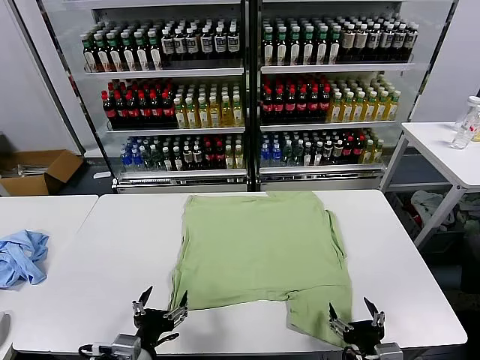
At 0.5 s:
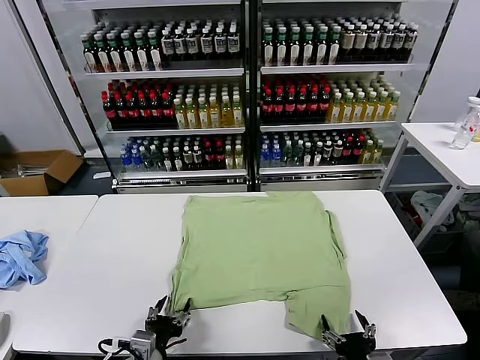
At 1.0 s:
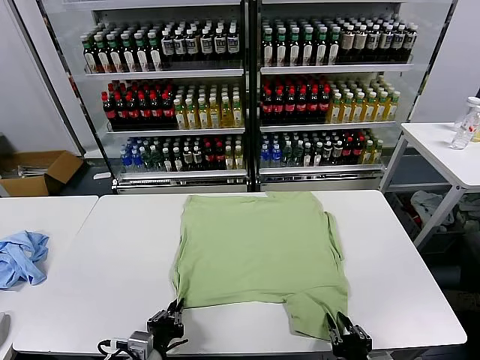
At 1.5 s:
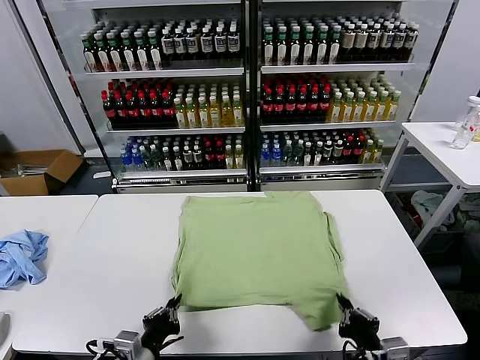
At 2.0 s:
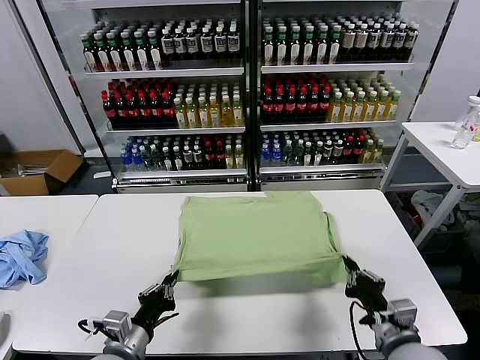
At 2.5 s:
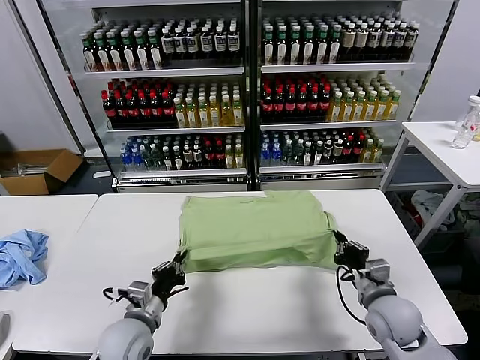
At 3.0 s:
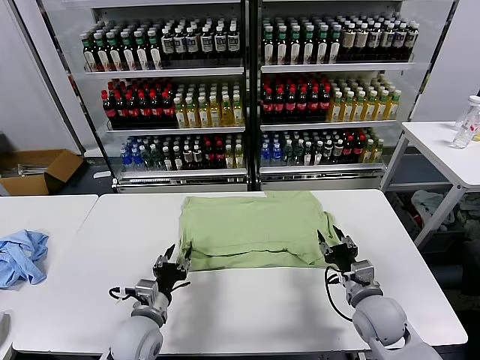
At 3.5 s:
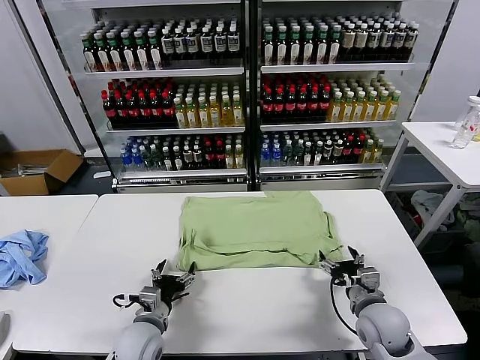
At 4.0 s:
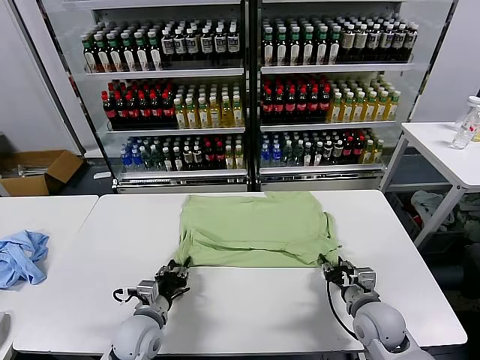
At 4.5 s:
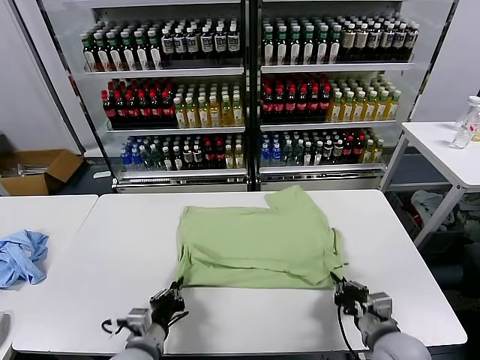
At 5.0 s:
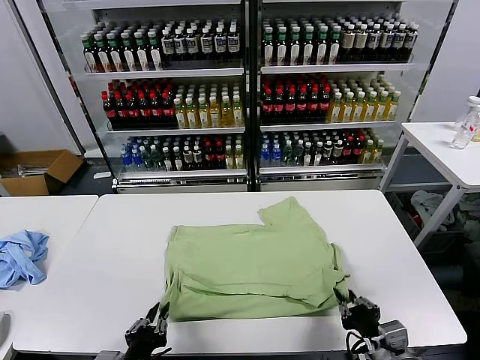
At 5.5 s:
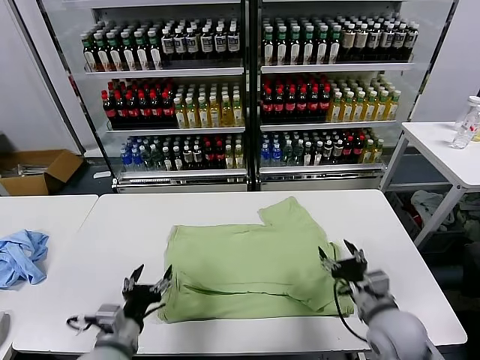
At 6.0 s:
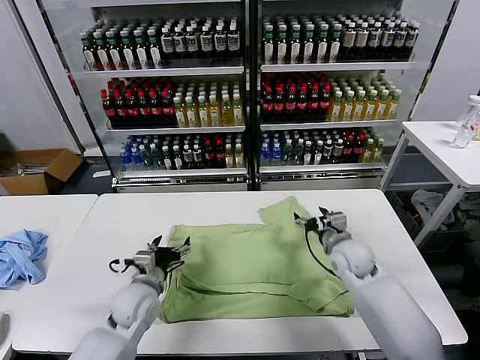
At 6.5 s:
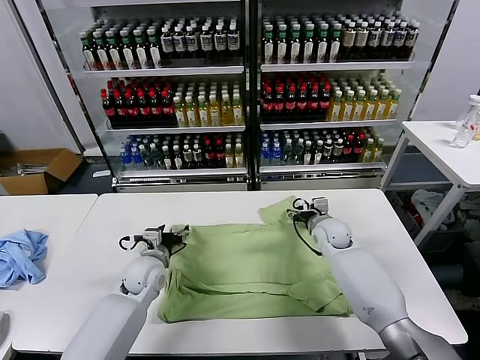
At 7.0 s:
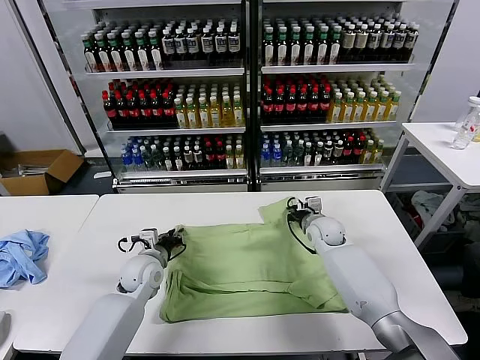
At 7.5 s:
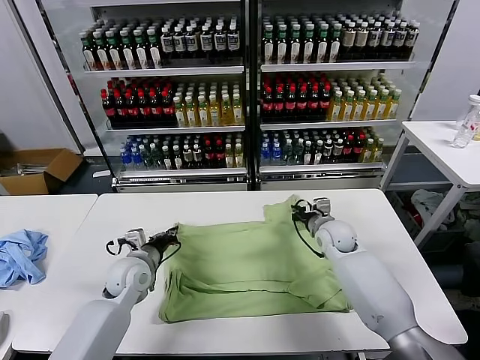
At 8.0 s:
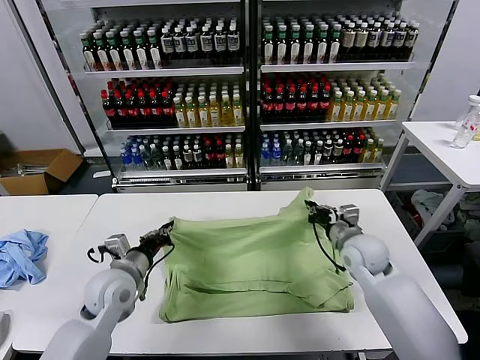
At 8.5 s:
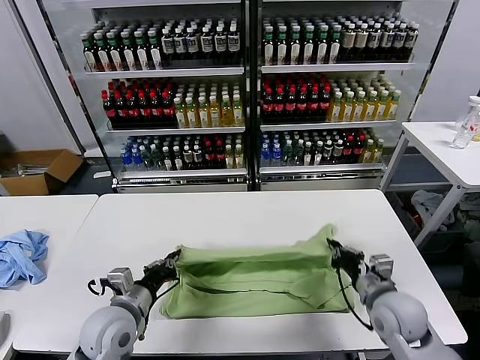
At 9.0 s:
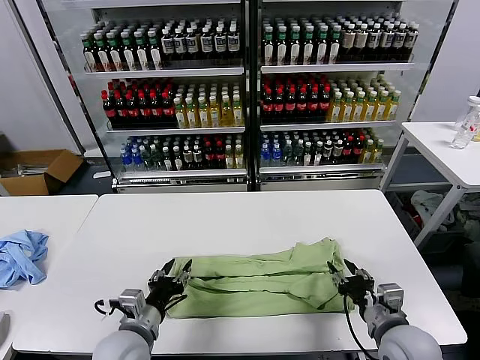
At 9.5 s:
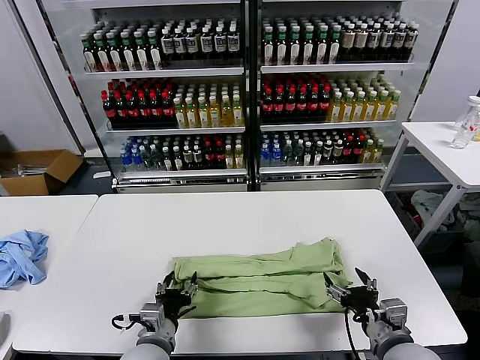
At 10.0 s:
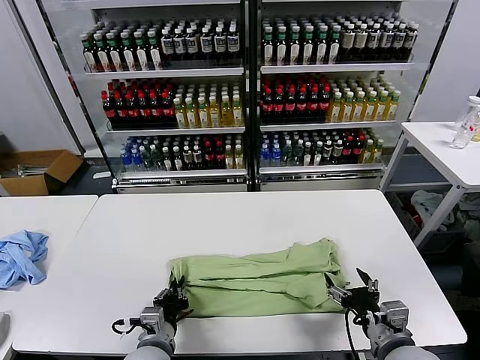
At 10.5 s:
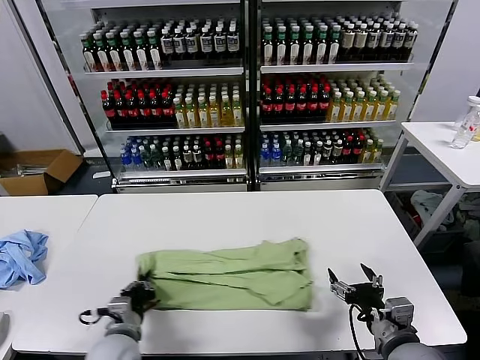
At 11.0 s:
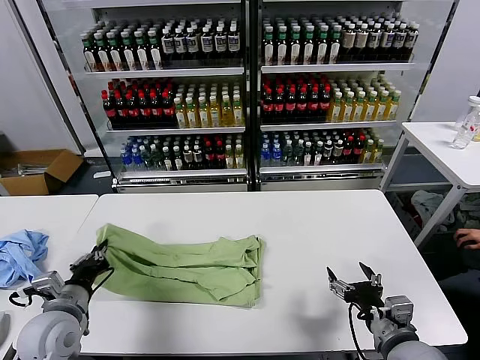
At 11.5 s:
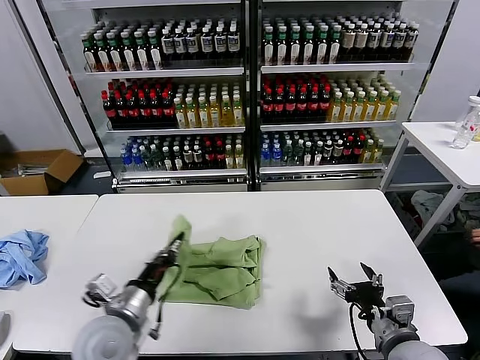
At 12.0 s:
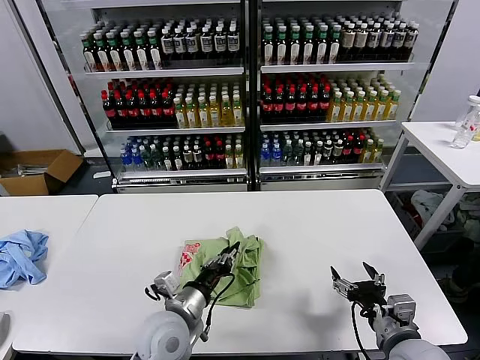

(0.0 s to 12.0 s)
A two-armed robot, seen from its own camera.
Task of the whole recording: fold and organize the clothes.
Step, 0.0 s - 1.0 s: use both grippers simultaneously to clamp the lower edge of the clothing fabric.
Step, 1.5 s - 2.5 s: use both grippers to drag the lower edge of the fabric forward and fold it over the upper edge.
Step, 3.0 s - 5.0 s: Drag the clothes downward with both gripper.
Step, 5.5 s - 7.0 s: use both grippers simultaneously to clamp the upper edge of the clothing fabric.
Step, 7.5 s - 8.5 s: use both grippers to drag the upper edge of the fabric backward and fold it over the lower edge.
Step, 9.0 s - 10.0 s: use the left gripper to clamp the left edge of the fabric.
2.0 s - 4.0 s: Both grippers move forward and downward, about 10 cm. The left gripper opens up. Meanwhile the right gripper opens, then closes once more.
4.0 s - 6.0 s: The right gripper goes approximately 20 cm forward, and opens up, while the left gripper reaches approximately 15 cm backward, then returns, and opens up.
6.0 s - 8.0 s: The right gripper heads backward, covering roughly 5 cm, and closes. The left gripper moves upward, roughly 5 cm, travels forward and back again, about 5 cm each way, and closes up.
8.0 s - 10.0 s: The left gripper heads backward, downward and to the right, covering roughly 15 cm, and opens, then closes again. The right gripper is displaced backward by about 20 cm, and opens up.
10.0 s - 12.0 s: The left gripper shifts about 5 cm upward, and goes to the left and returns, about 15 cm each way.

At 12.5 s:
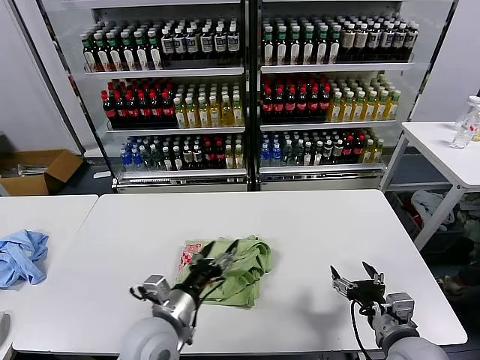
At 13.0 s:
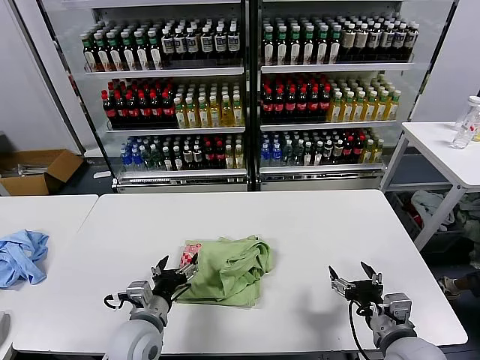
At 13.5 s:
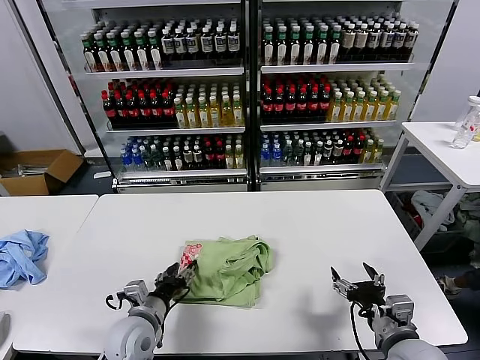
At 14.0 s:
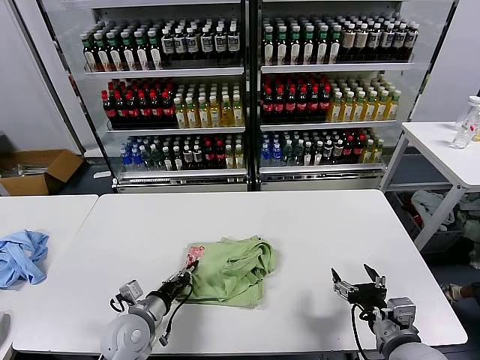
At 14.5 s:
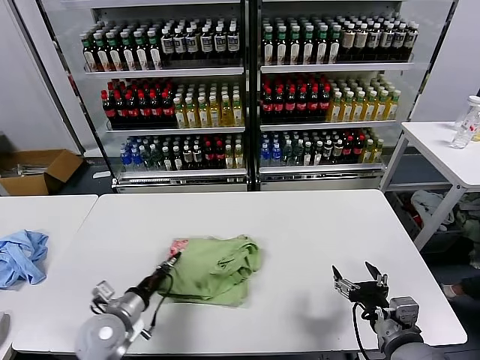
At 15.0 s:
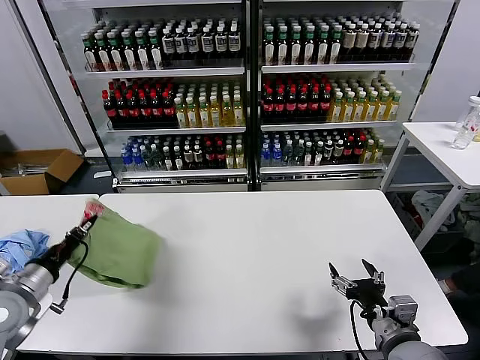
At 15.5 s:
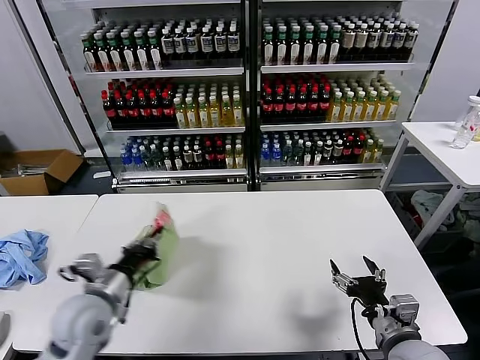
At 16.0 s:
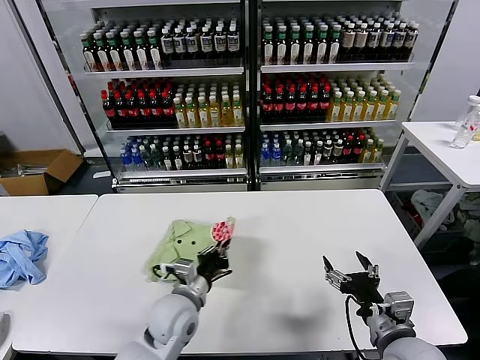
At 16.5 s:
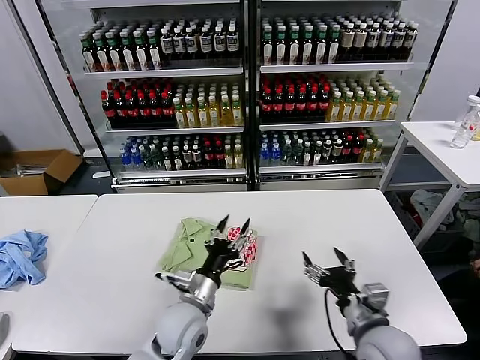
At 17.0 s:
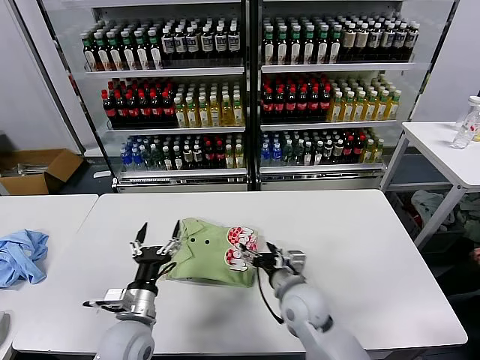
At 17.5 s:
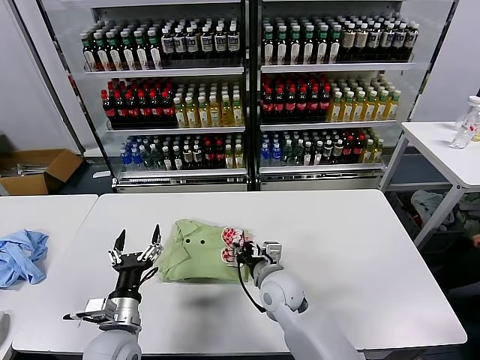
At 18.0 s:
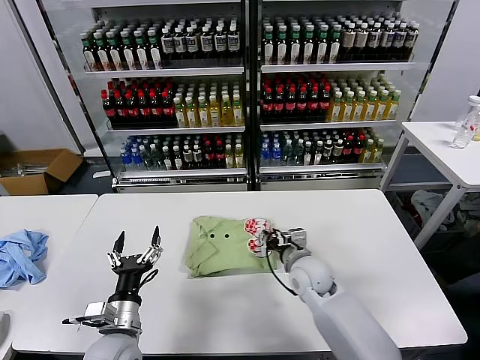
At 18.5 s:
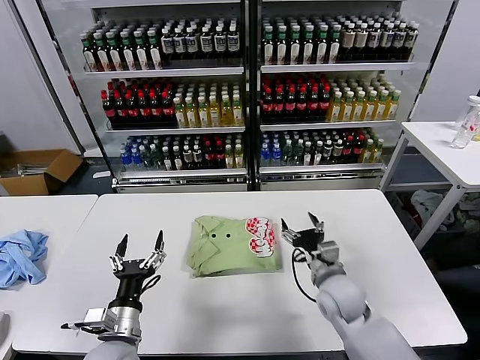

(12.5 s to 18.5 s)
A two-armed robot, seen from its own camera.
Task of the whole recording: fold and organize the clothes.
Step, 12.5 s - 16.0 s: Flip the folded clothes over with left gripper.
Step, 16.5 s - 18.0 s: Drag the clothes to the center of the table.
12.5 s - 14.5 s: The left gripper is displaced to the left and downward by about 15 cm, and closes.
14.5 s - 16.5 s: The left gripper travels to the right by about 15 cm, and opens.
16.5 s - 18.5 s: The right gripper heads forward, covering roughly 15 cm, and closes and opens again; the left gripper goes some 15 cm to the left and backward, and opens up.

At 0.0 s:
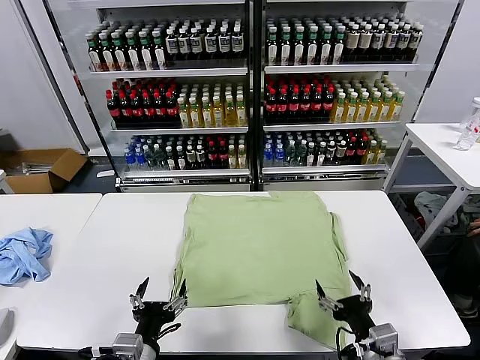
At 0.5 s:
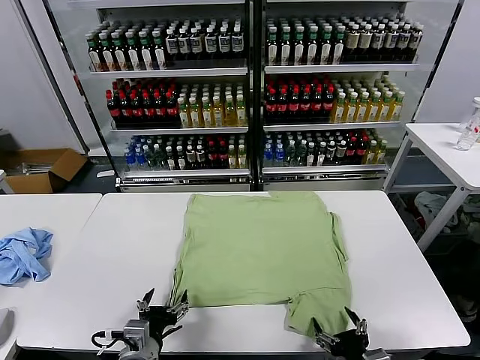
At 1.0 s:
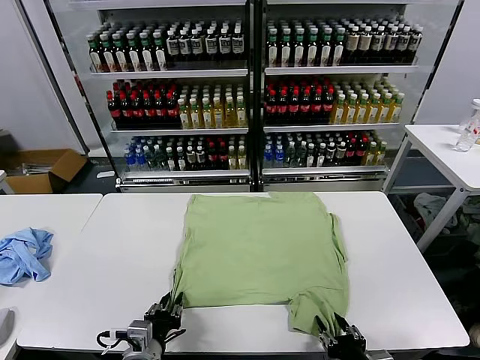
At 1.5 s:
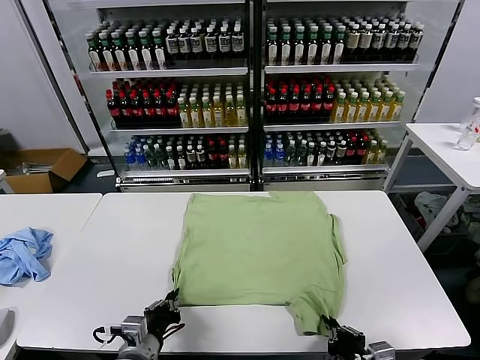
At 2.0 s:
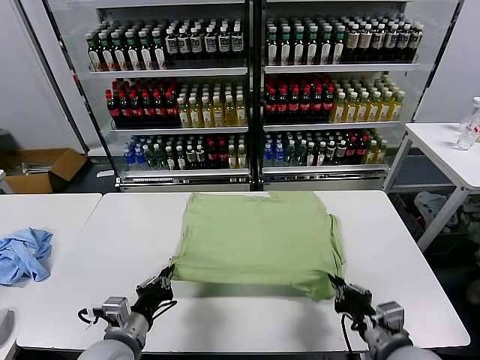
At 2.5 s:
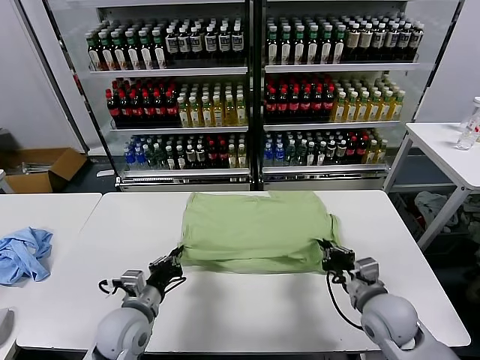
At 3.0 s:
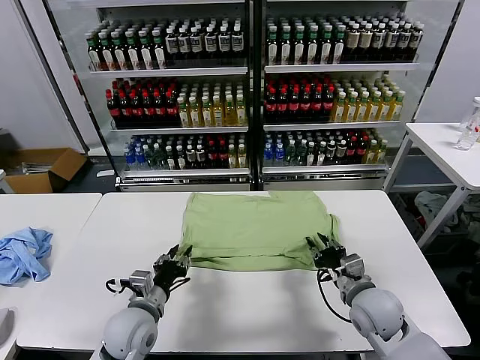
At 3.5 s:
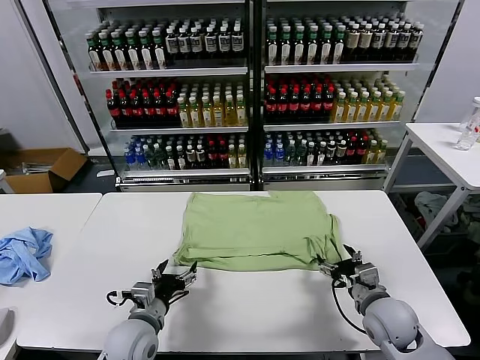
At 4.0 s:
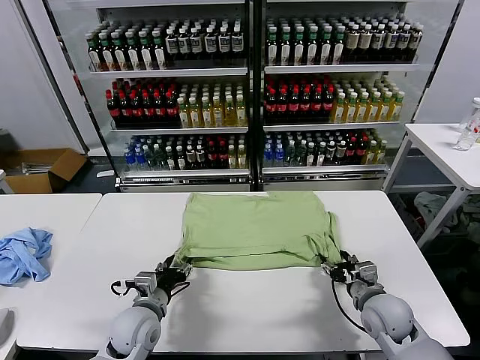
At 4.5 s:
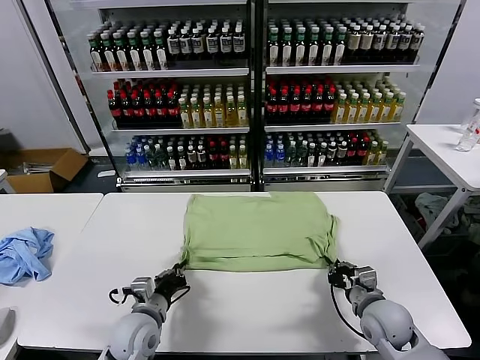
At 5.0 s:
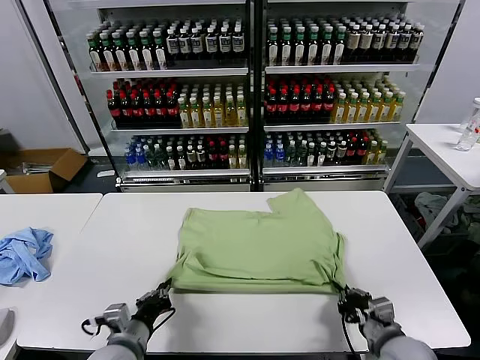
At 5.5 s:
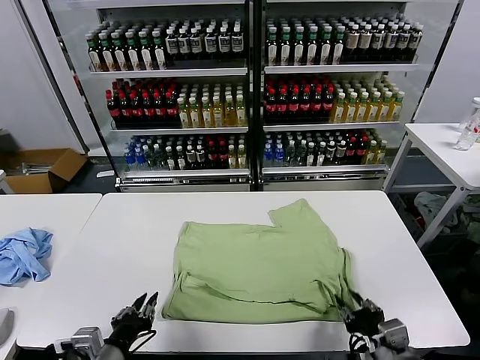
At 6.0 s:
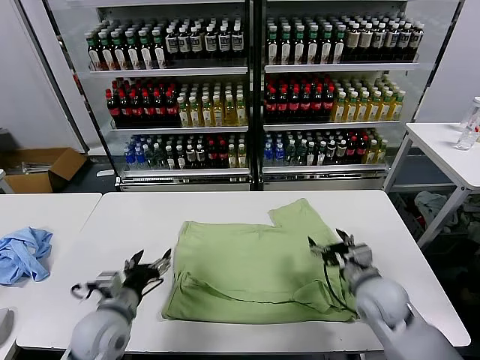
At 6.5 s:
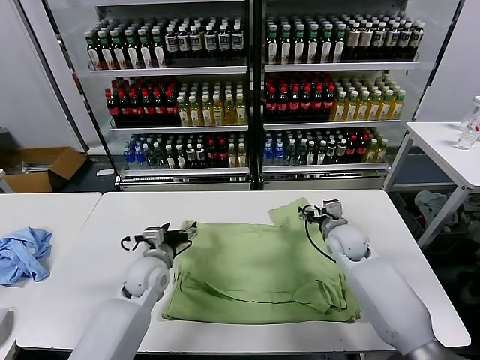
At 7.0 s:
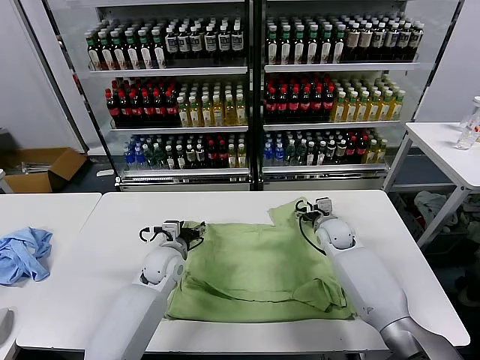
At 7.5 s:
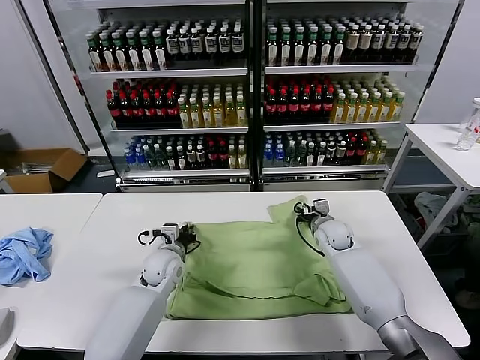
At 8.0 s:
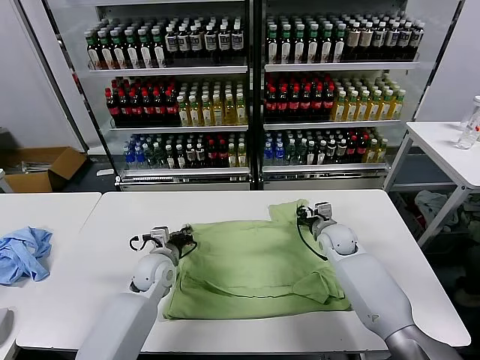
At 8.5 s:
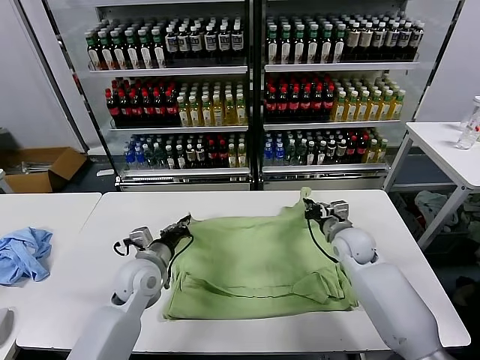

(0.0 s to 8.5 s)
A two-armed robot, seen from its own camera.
Task of the whole recording: fold and organize the clothes.
Step, 0.0 s - 1.0 s: use both grippers simultaneously to clamp the lower edge of the clothing fabric.
Step, 1.5 s - 3.0 s: use both grippers to drag the lower edge of the fabric forward and fold it over the upper edge.
Step, 3.5 s - 5.5 s: Drag the clothes downward with both gripper.
Step, 6.0 s - 7.5 s: use both grippers simultaneously to clamp the upper edge of the clothing fabric.
2.0 s - 4.0 s: The two grippers go approximately 10 cm forward and downward. The left gripper opens its fingers. Meanwhile the right gripper opens.
4.0 s - 6.5 s: The left gripper shifts approximately 10 cm forward, and closes, then opens again. The right gripper goes approximately 20 cm forward, and opens up.
6.5 s - 8.5 s: The right gripper closes up; the left gripper closes.
